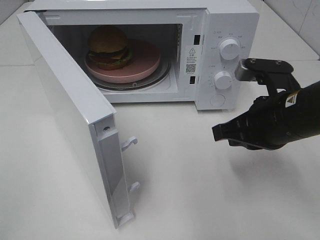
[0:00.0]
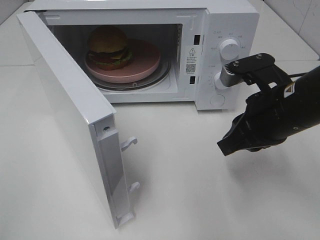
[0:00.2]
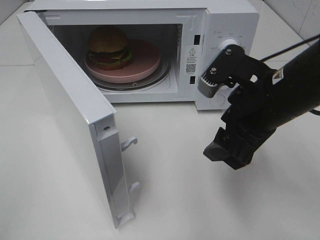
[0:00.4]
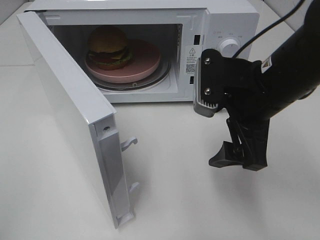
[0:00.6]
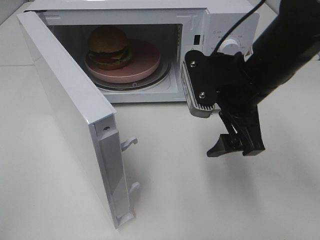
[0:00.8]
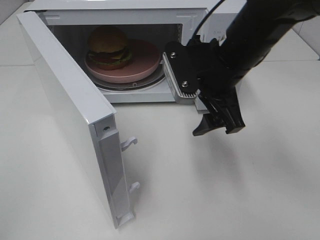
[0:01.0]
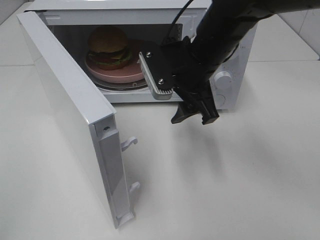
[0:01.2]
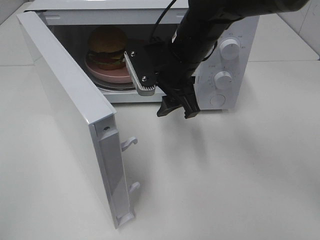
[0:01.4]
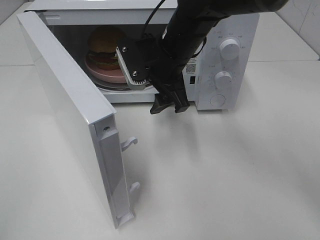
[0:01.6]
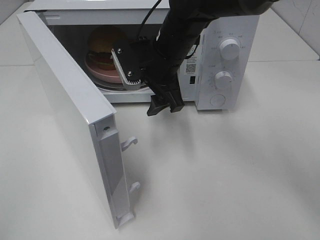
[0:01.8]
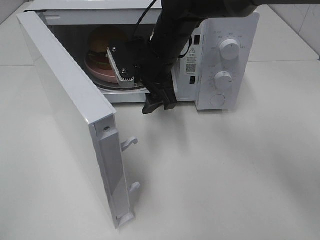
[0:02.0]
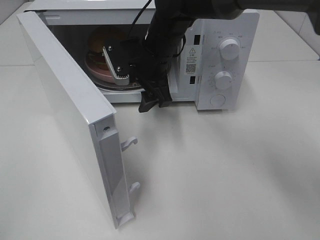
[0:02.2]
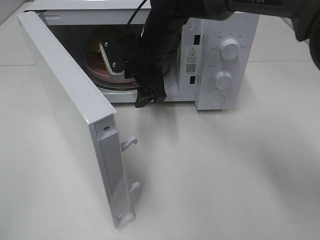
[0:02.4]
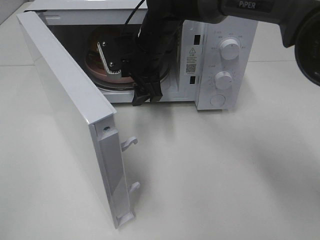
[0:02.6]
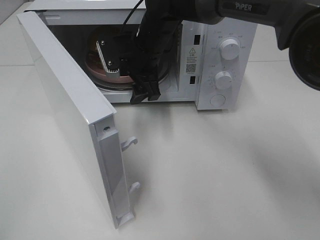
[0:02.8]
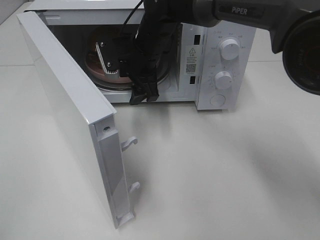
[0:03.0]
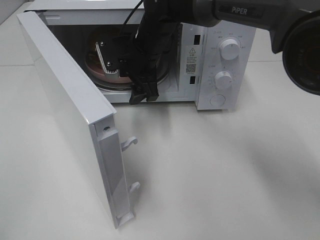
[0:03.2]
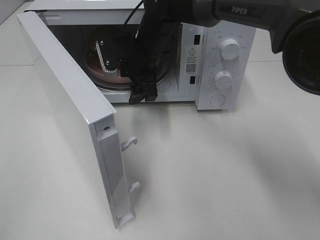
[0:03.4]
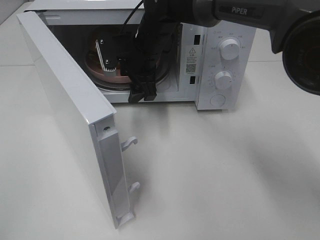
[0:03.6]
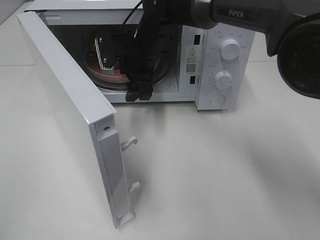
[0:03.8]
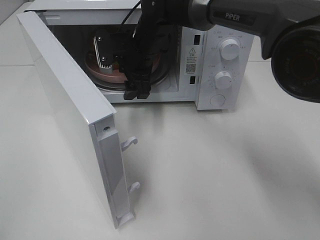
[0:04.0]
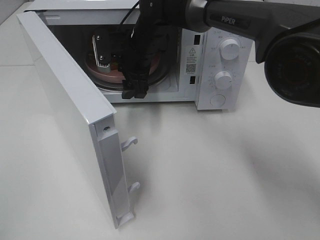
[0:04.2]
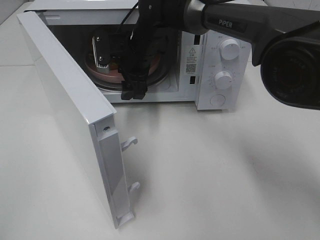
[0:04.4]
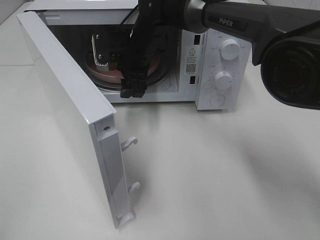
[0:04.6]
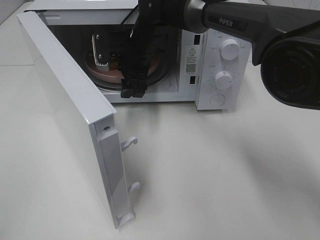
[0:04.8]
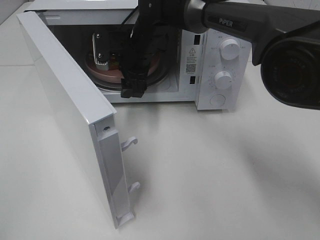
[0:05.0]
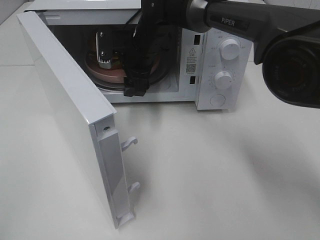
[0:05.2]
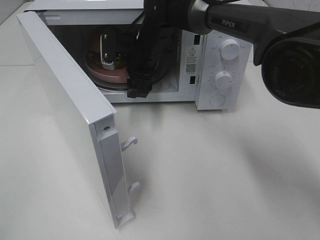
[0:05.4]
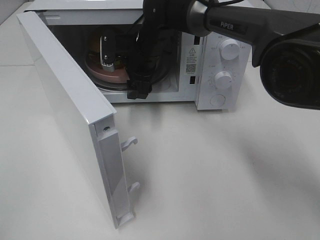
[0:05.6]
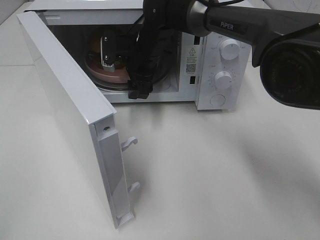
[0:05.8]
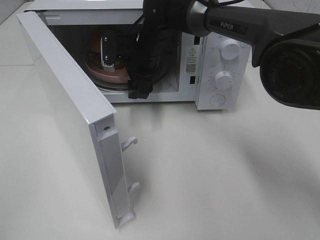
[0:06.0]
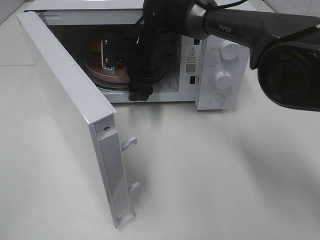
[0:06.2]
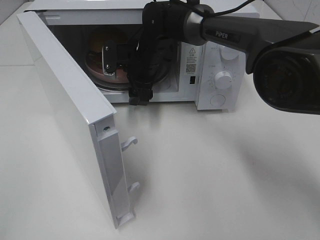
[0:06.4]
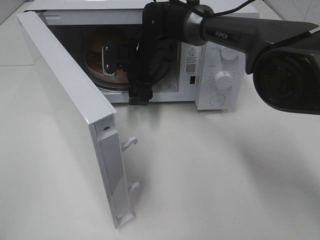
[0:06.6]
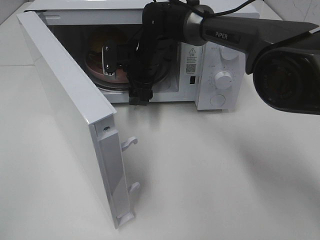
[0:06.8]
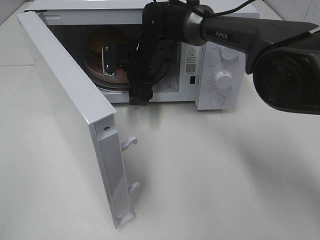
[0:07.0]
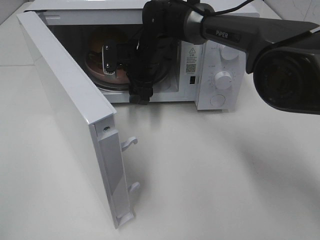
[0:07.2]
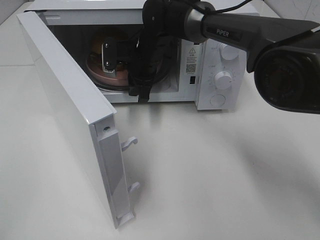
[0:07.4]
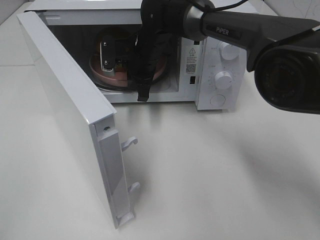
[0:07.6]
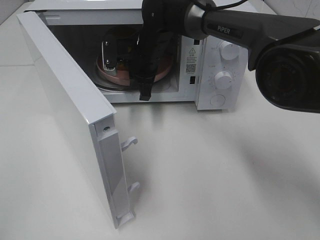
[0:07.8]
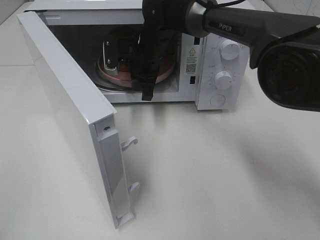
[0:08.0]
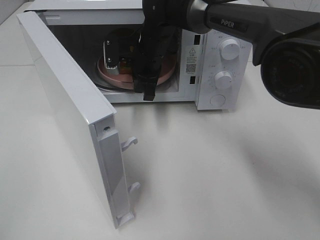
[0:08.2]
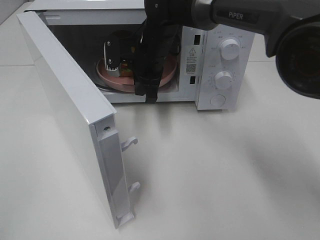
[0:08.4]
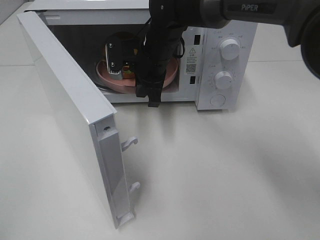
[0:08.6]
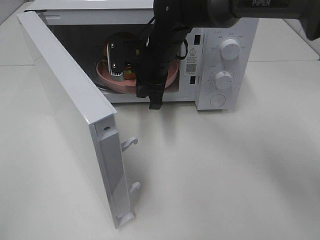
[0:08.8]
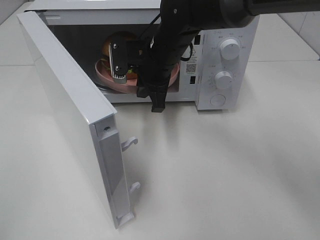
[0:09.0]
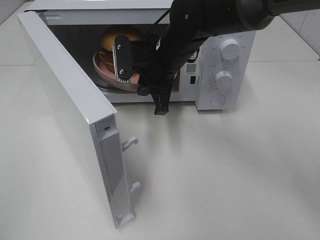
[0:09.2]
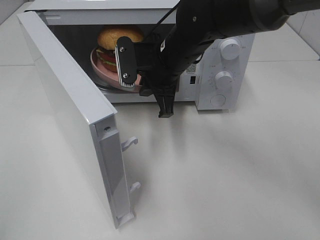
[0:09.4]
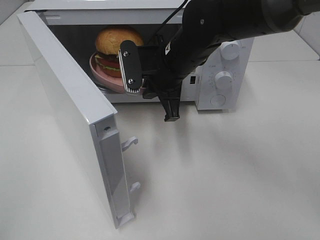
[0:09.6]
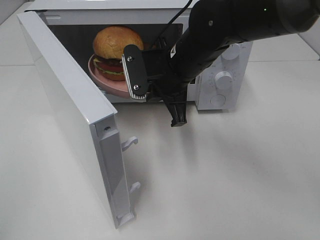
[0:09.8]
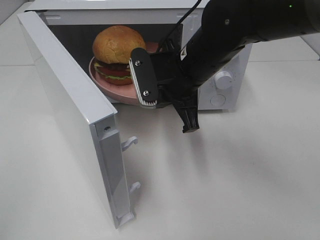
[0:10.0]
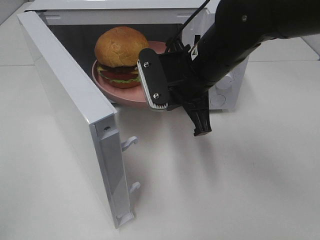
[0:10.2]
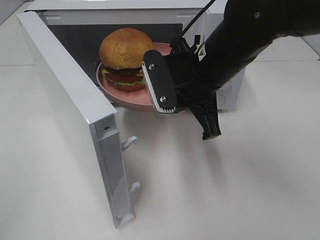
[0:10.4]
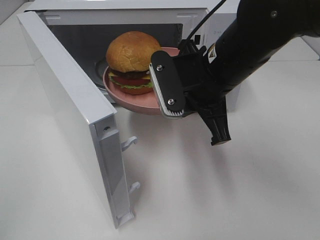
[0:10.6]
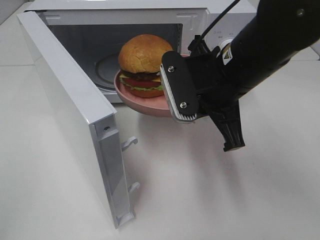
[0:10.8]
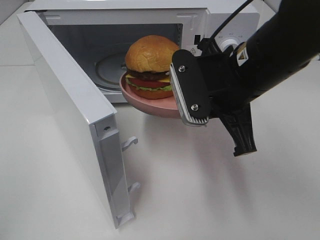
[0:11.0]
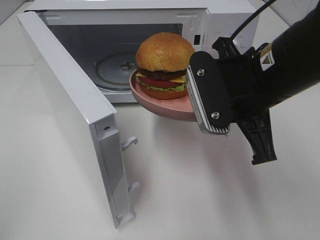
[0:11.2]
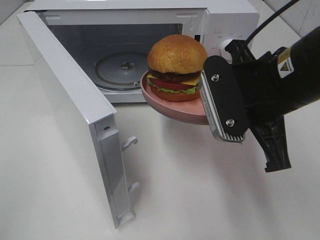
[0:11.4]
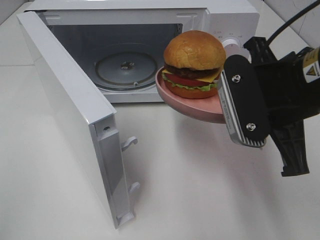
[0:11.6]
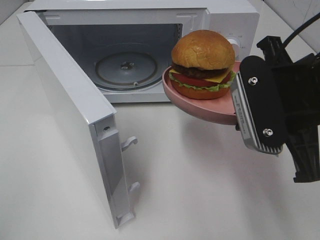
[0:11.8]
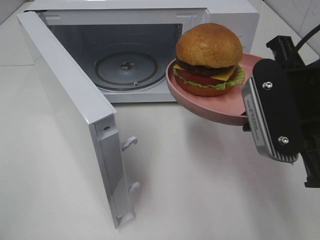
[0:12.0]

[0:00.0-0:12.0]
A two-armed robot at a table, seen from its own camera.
Task of the whole recording: Heat the burger.
Step, 0:00.0 to 0:07.6: Right hand: grab the plate with the hamburger.
0:00.0 to 0:01.6: The right gripper goes some 20 cm to the left and forward, and opens its fingers.
0:01.6 to 0:03.0: The right gripper shifts approximately 5 cm forward.
0:03.0 to 0:06.0: The grippers stay close to where they were, moving slightly.
0:06.0 to 0:07.6: The right gripper closes.
0:07.6 to 0:09.0: The right gripper moves backward, approximately 5 cm.
0:09.0 to 0:10.4: The right gripper shifts roughly 10 cm backward and to the right.
0:10.4 to 0:12.0: The right gripper heads backward and to the right, covering about 15 cm.

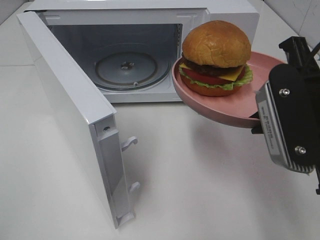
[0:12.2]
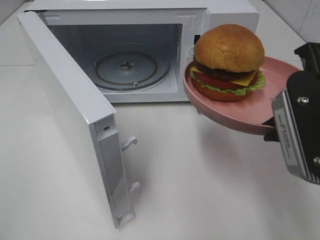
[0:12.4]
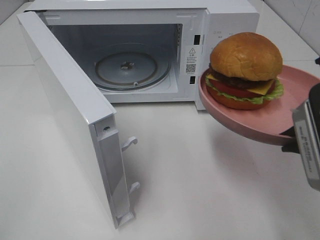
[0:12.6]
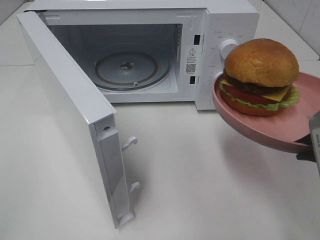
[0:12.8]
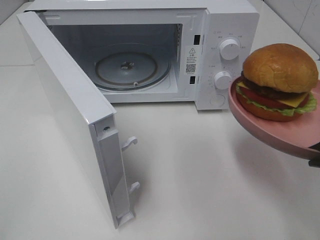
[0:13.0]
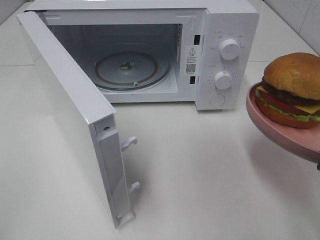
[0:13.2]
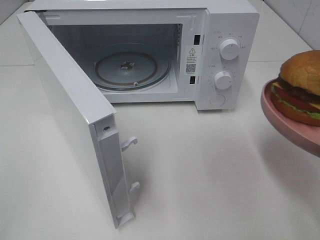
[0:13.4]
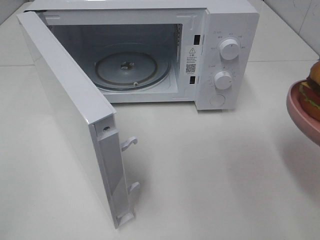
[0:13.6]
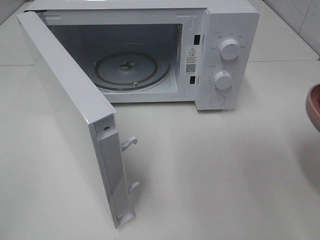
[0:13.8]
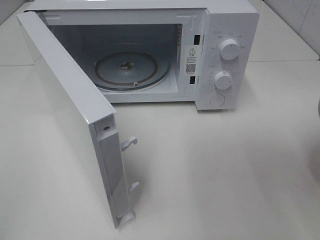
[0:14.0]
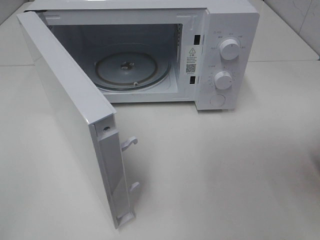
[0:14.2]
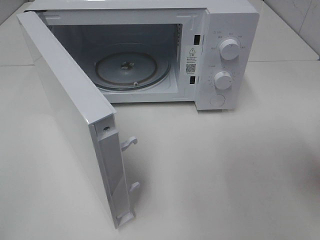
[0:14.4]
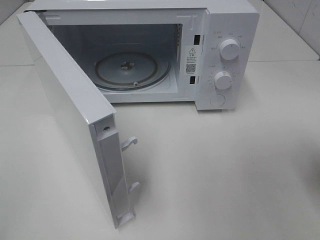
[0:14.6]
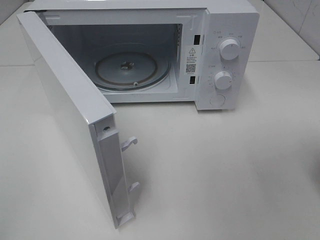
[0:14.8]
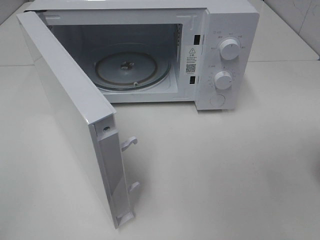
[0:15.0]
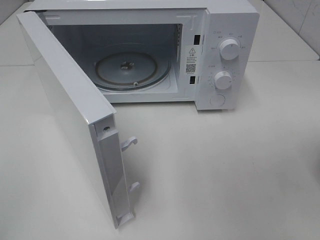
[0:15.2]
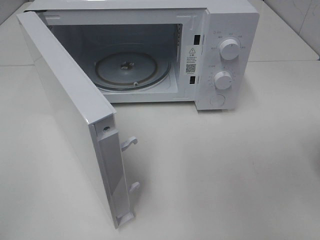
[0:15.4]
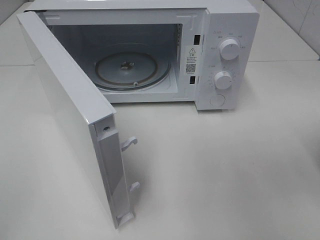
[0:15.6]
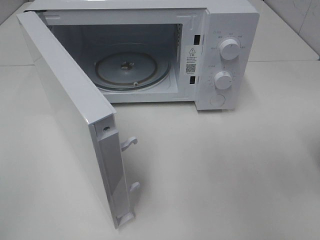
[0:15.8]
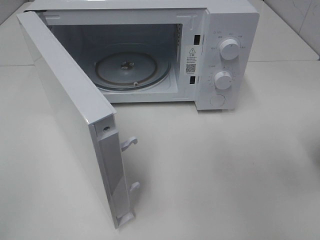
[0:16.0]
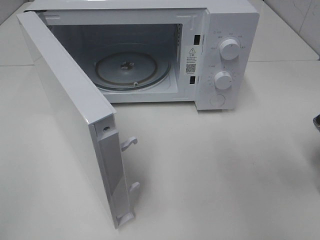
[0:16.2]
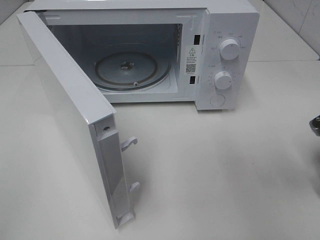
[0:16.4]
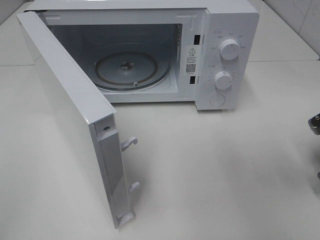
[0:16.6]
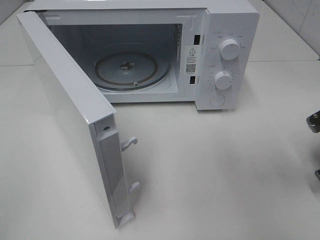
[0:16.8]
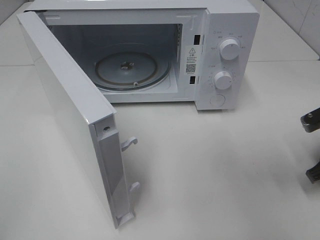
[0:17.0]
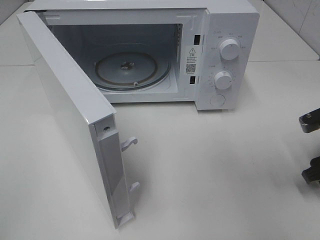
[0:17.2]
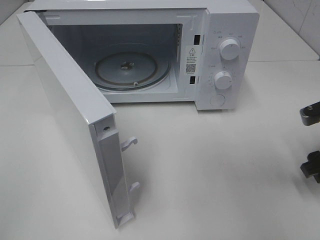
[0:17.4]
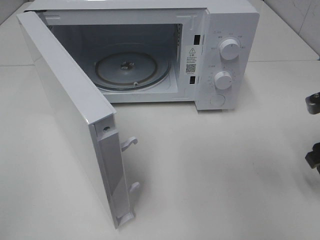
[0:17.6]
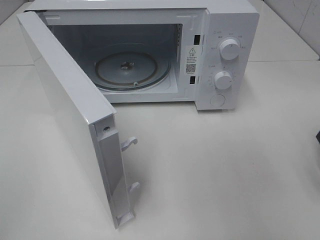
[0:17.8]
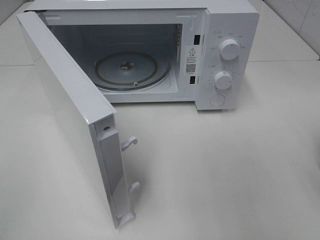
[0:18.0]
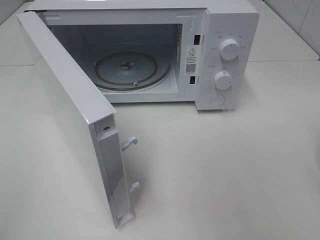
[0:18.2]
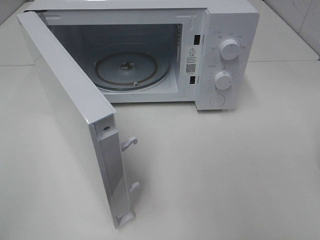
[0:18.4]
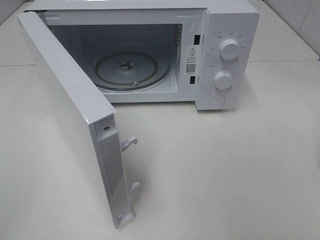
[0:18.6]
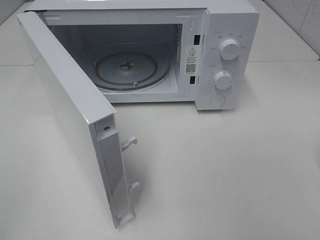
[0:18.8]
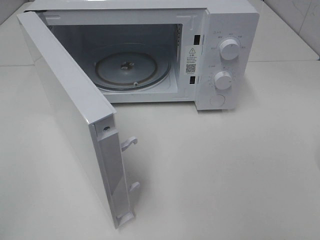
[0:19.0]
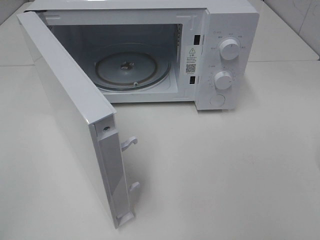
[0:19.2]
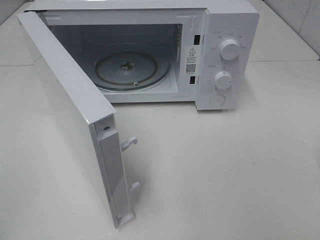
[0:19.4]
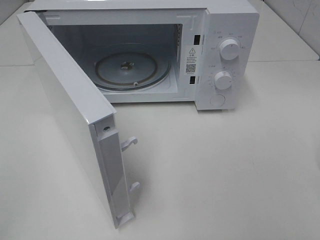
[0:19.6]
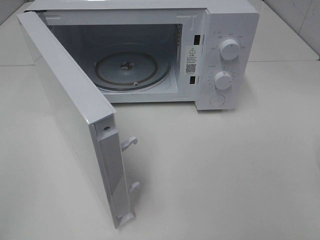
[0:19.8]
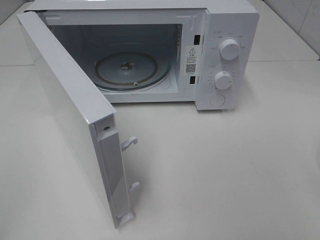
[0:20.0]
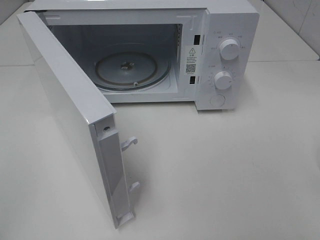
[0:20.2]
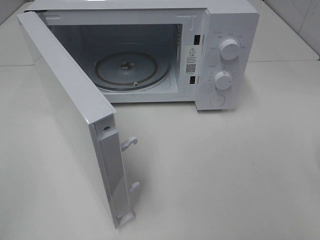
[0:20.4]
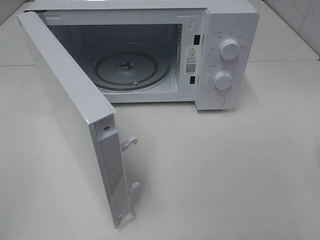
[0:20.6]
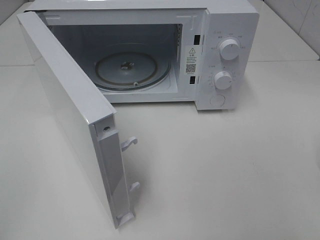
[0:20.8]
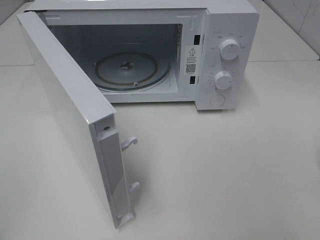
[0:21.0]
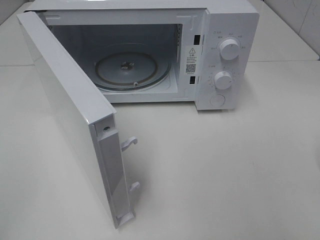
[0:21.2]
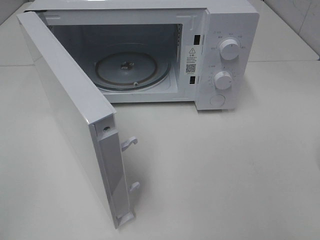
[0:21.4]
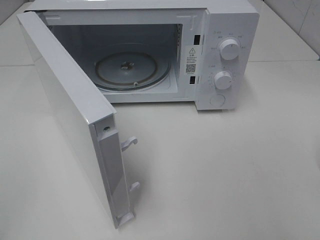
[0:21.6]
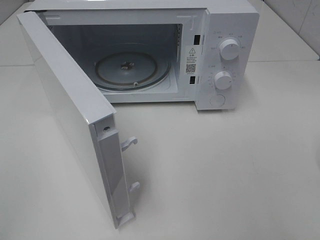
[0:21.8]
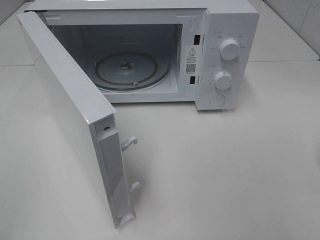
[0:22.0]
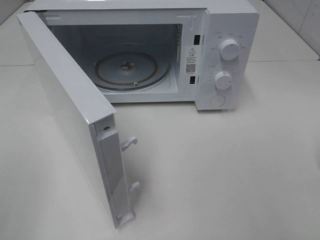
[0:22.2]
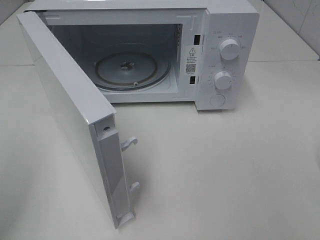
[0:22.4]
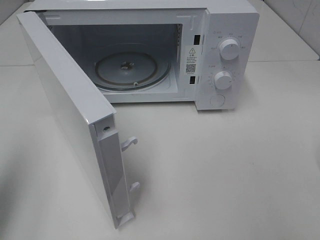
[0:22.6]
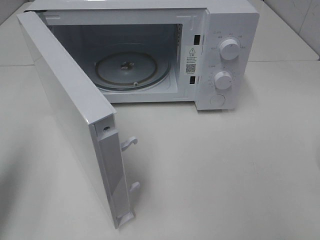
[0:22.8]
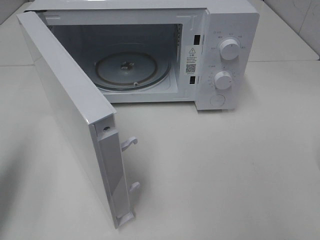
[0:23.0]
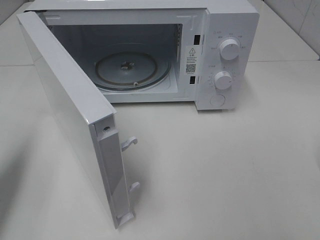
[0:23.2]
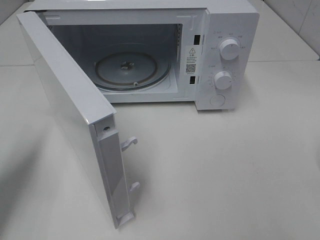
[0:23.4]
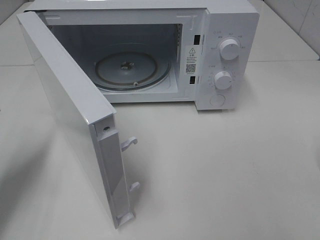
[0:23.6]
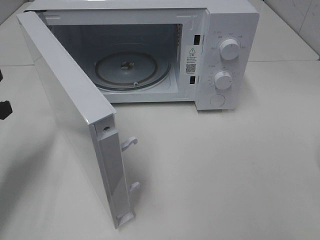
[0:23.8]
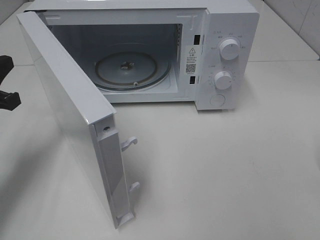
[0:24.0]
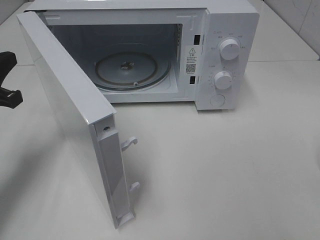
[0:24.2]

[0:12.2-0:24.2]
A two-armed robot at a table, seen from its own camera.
Task of the whole recording: Heat the burger.
Step, 0:12.2 to 0:16.8: Right hand: place the plate on the table.
0:12.2 to 0:13.8: The right gripper shifts some 5 cm to the right.
0:13.8 to 0:15.2: The right gripper shifts approximately 10 cm forward, downward and to the right.
0:16.6 to 0:18.2: The right gripper moves upward, some 15 cm, and opens up.
0:21.2 to 0:22.6: The left gripper moves forward, about 15 cm, and closes its fingers.
0:22.6 to 0:24.2: The left gripper heads forward and downward, covering approximately 15 cm.
